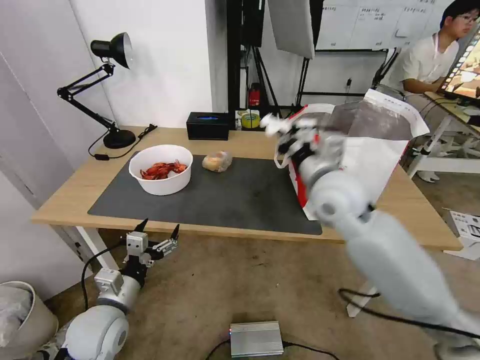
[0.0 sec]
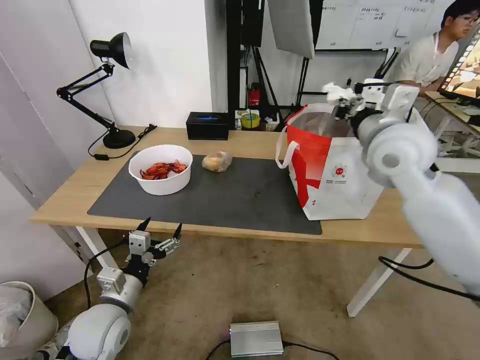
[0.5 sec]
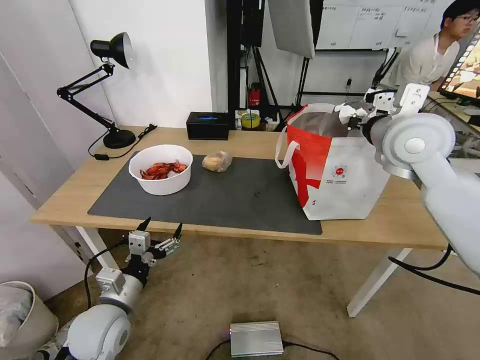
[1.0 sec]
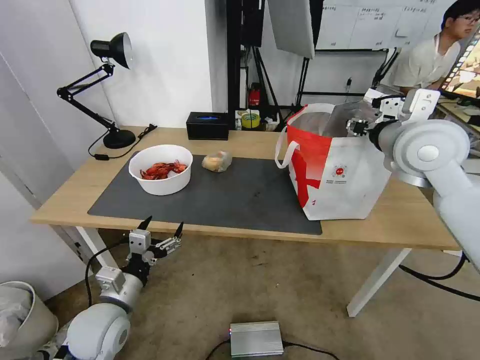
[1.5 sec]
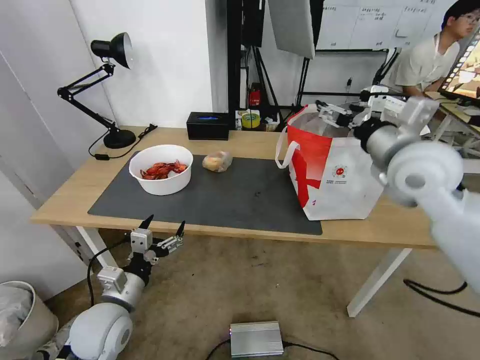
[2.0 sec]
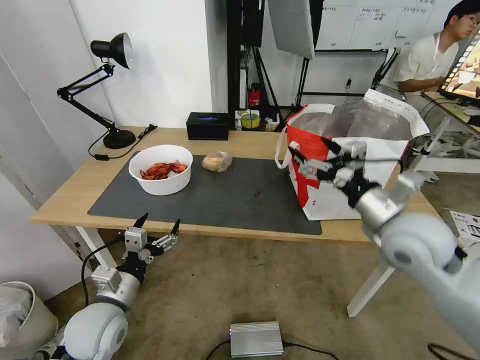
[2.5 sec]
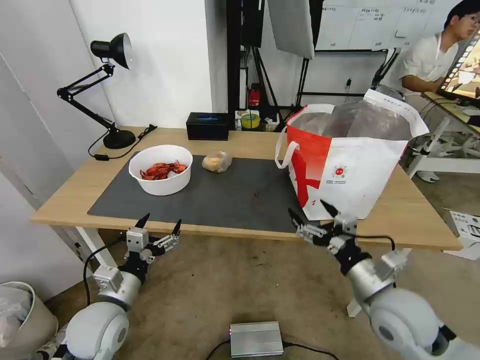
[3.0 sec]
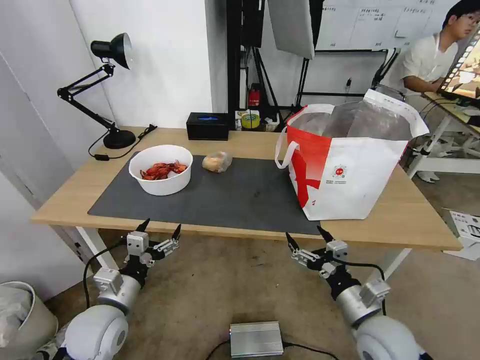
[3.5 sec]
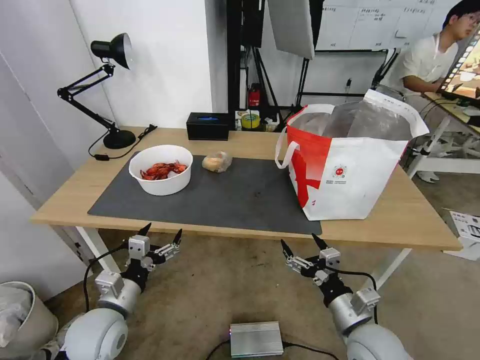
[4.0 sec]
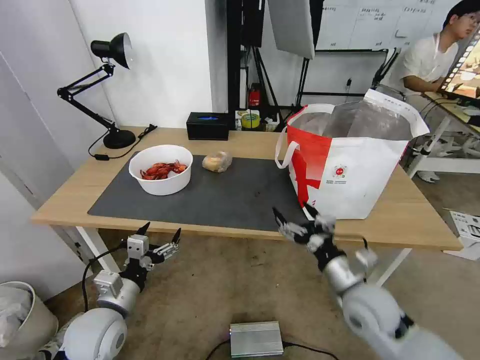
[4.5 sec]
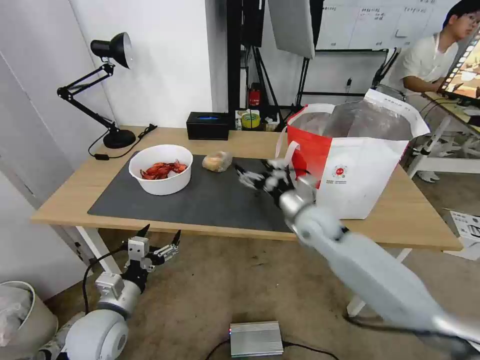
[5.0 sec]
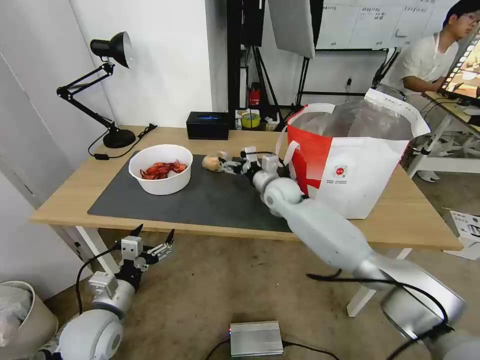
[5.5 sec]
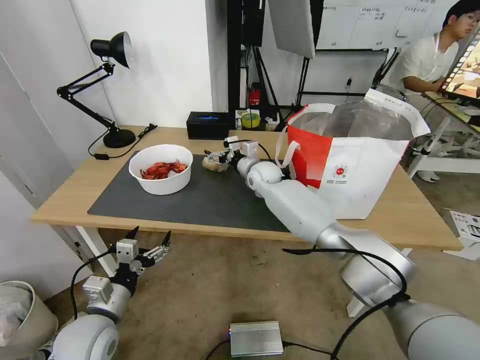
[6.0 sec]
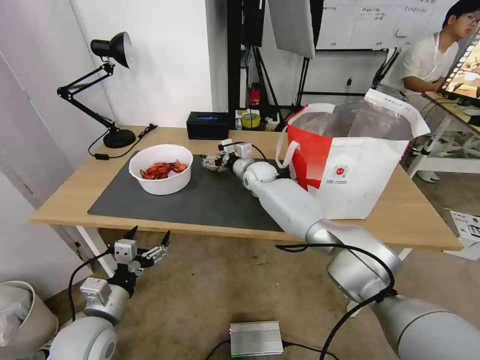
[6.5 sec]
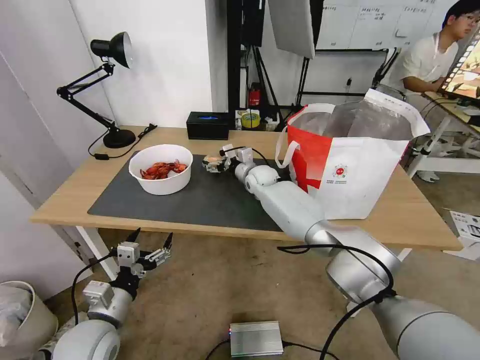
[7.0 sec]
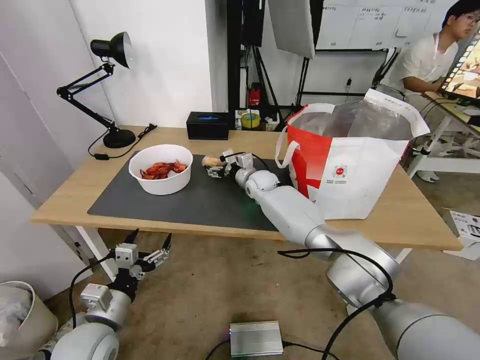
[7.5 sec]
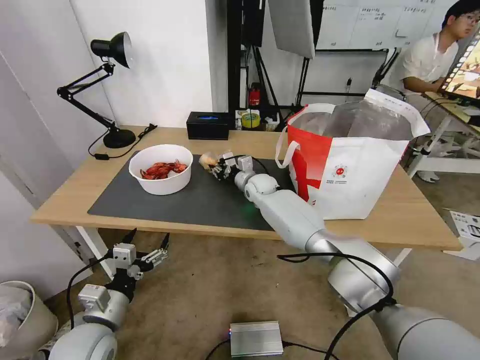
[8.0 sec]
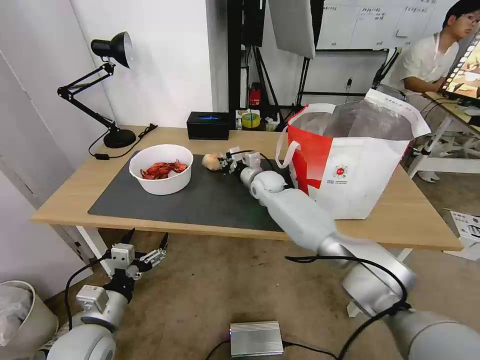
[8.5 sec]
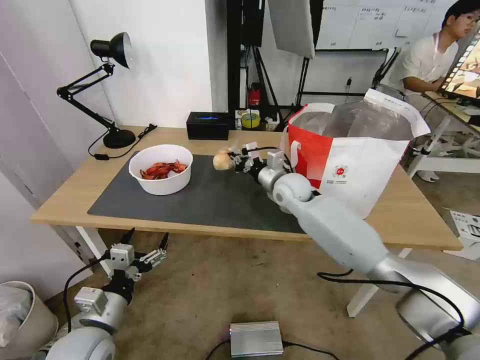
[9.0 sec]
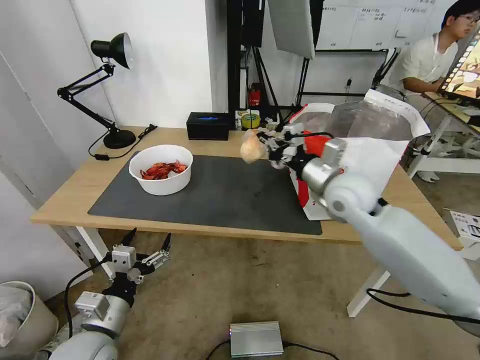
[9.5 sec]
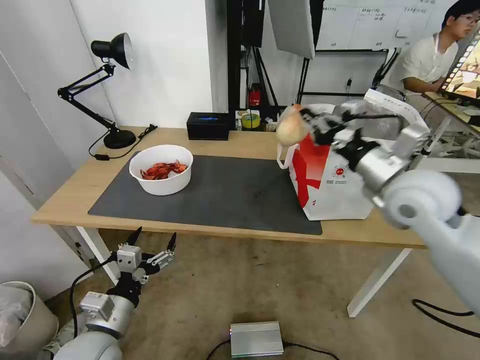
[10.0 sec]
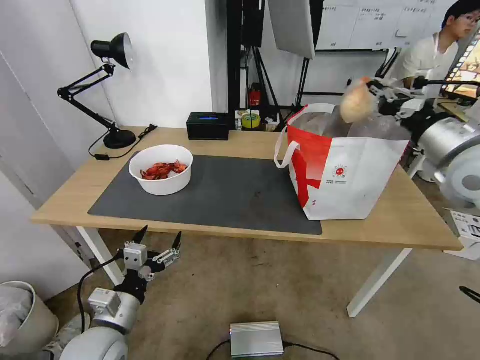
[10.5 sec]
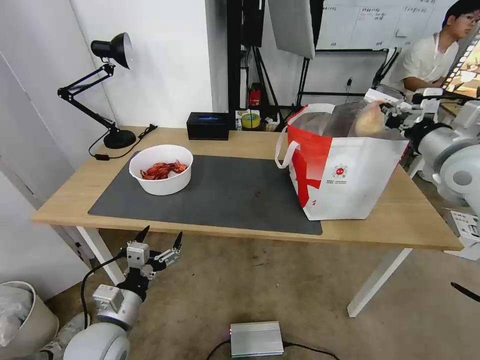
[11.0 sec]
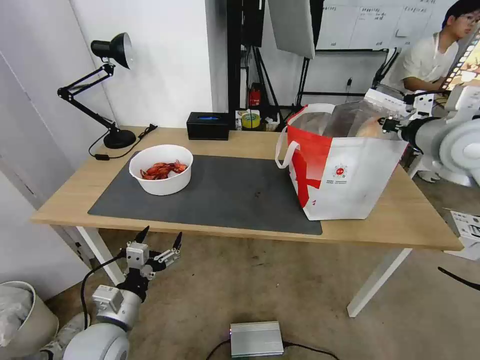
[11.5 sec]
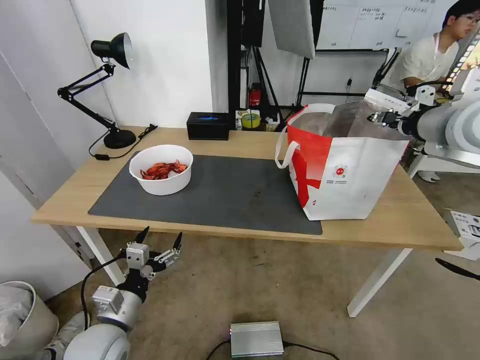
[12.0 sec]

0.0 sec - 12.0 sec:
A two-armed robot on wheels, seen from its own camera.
Task of the whole recording: Pick up the trash from the table and place it into the takeout bag.
0.0 sec - 2.0 sec: The right gripper moves to the right and upward, approximately 15 cm, and opens up.
2.0 sec - 4.0 sec: The right gripper heads downward and backward, covering approximately 35 cm.
4.0 sec - 6.0 sec: The right gripper heads forward and to the left, covering approximately 50 cm.
6.0 sec - 8.0 sec: The right gripper closes.
8.0 sec - 10.0 sec: The right gripper goes roughly 40 cm backward, to the right and upward.
10.0 sec - 12.0 sec: The right gripper heads upward and to the right, covering roughly 15 cm, and opens its fingers.

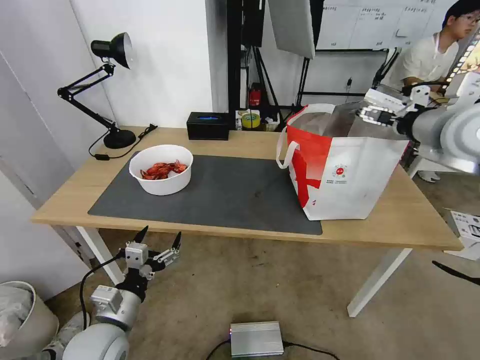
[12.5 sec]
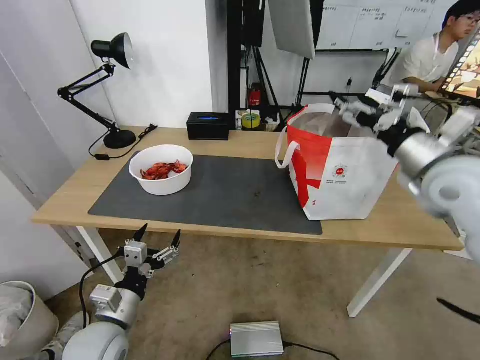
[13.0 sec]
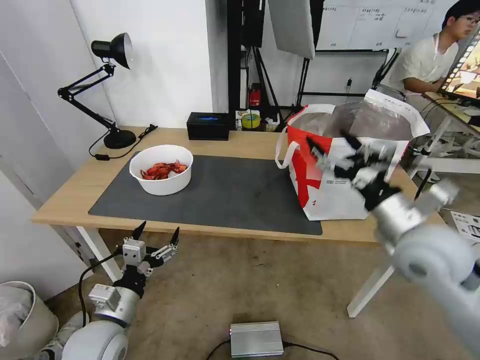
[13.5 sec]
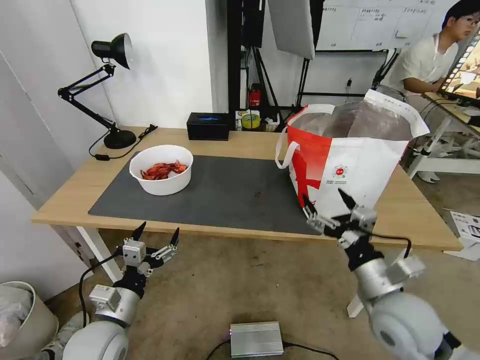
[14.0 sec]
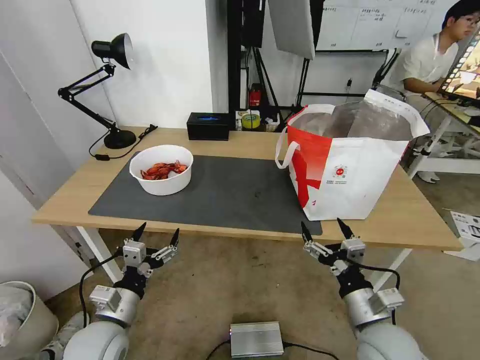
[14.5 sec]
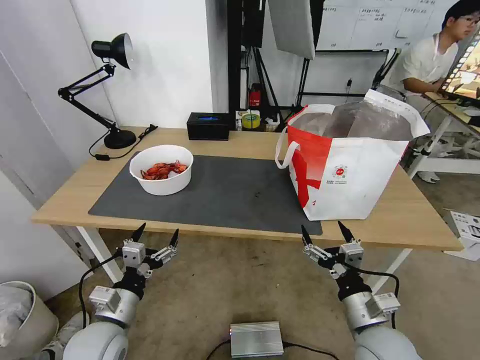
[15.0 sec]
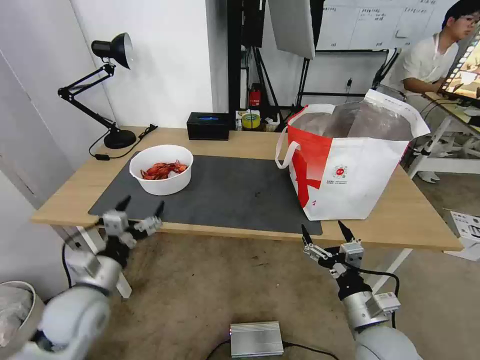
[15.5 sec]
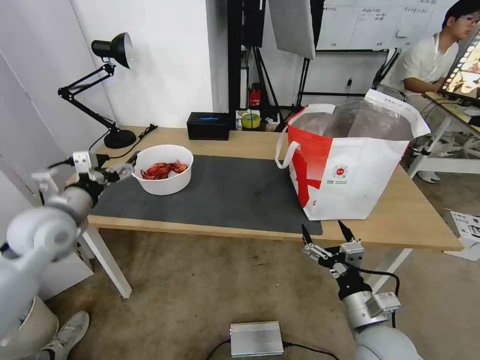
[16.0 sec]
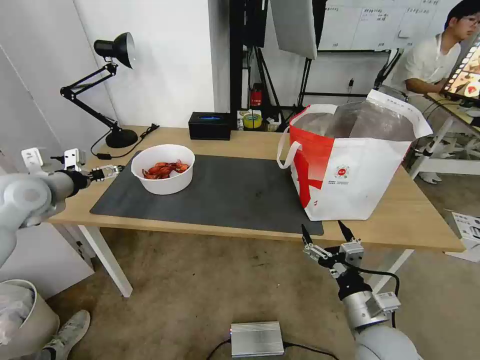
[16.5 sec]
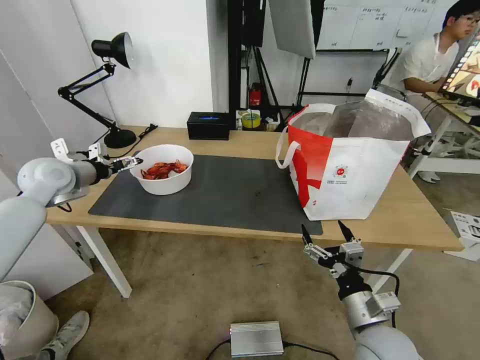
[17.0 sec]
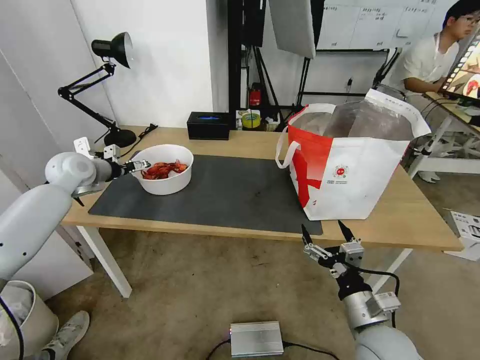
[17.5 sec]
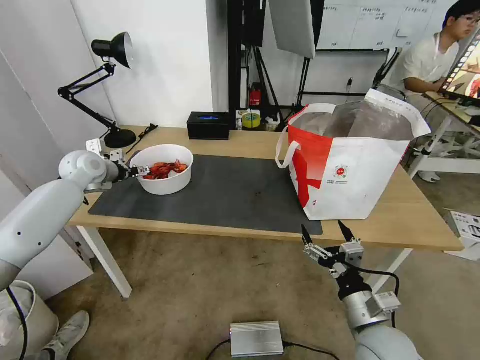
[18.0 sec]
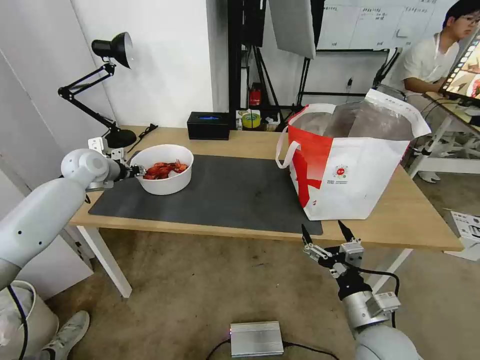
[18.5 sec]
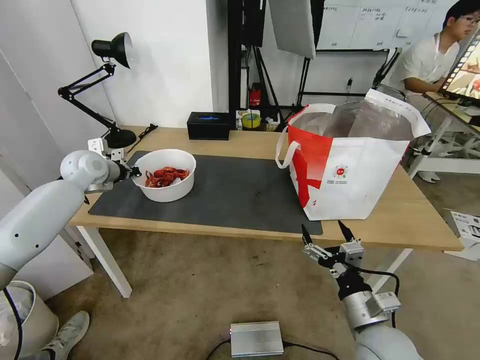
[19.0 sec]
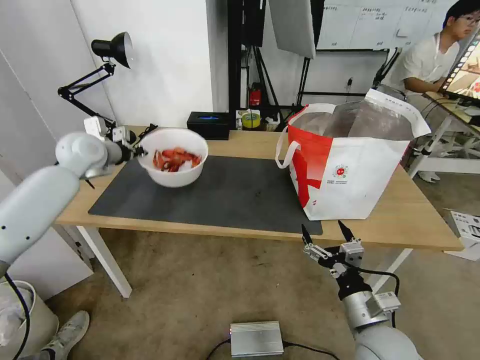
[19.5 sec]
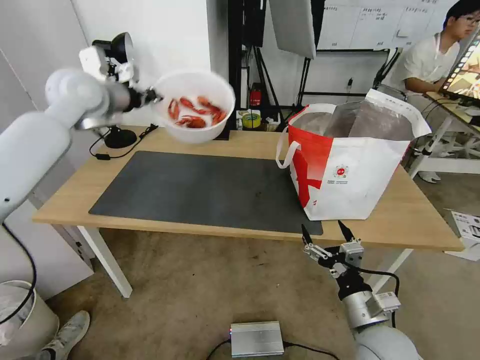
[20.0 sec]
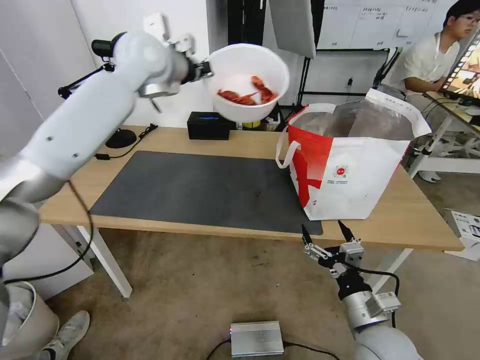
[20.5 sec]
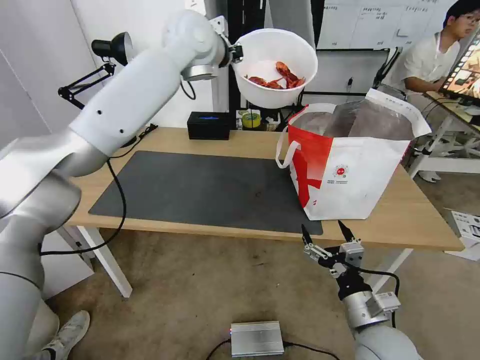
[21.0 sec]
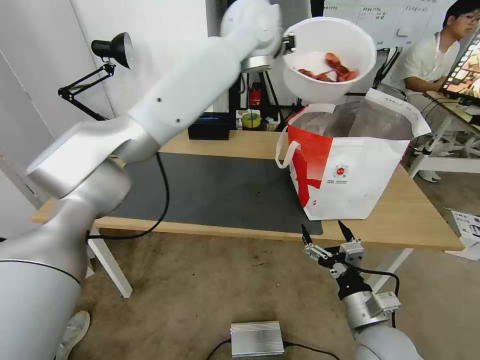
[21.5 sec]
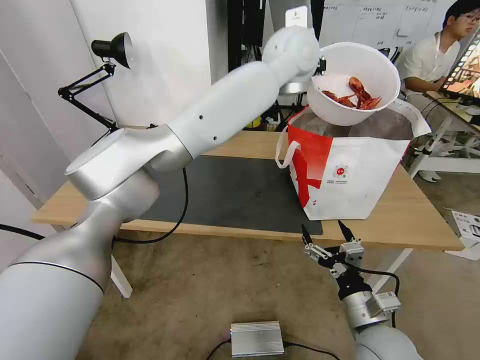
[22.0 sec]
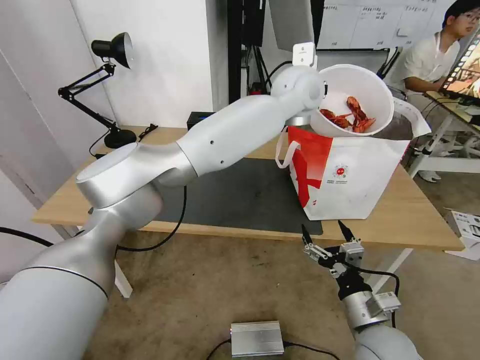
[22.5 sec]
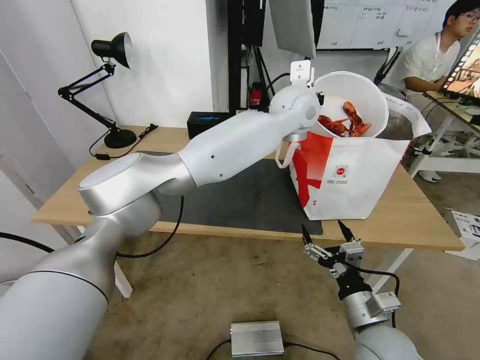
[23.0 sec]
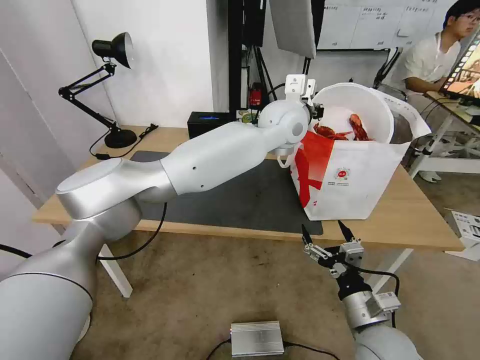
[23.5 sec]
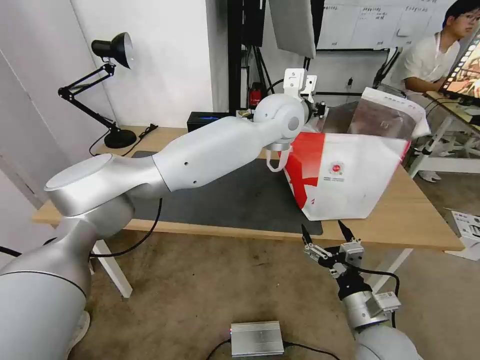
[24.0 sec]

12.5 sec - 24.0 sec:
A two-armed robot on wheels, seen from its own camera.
Task of the whole recording: Pick up the trash from the table and place it into the takeout bag.
12.5 sec - 14.5 sec: The right gripper travels downward and backward by approximately 40 cm.
14.5 sec - 16.5 sec: The left gripper heads forward, upward and to the left, covering approximately 35 cm.
16.5 sec - 18.5 sec: The left gripper goes about 15 cm forward and to the right, and closes up.
18.5 sec - 20.0 sec: The left gripper goes roughly 20 cm upward and to the right, and closes up.
20.0 sec - 22.0 sec: The left gripper travels to the right by some 40 cm.
22.0 sec - 24.0 sec: The left gripper travels downward by approximately 10 cm, and opens its fingers.

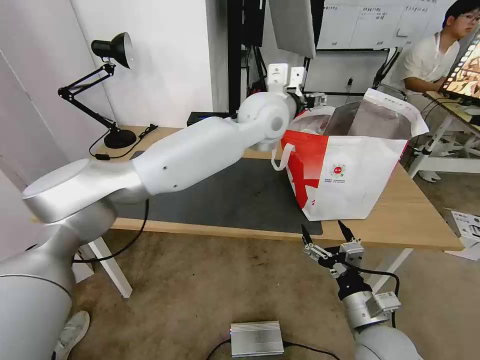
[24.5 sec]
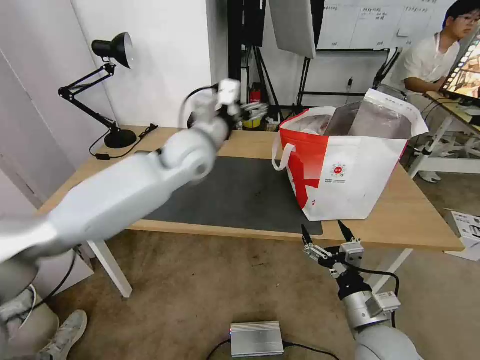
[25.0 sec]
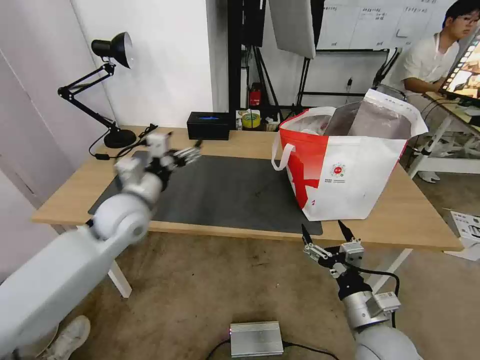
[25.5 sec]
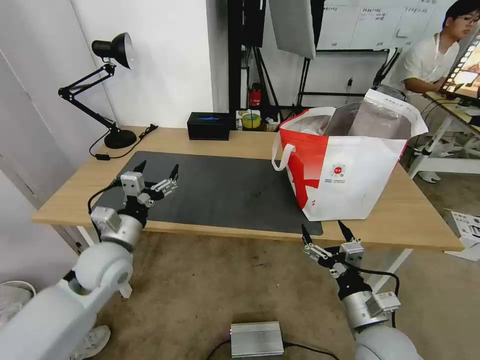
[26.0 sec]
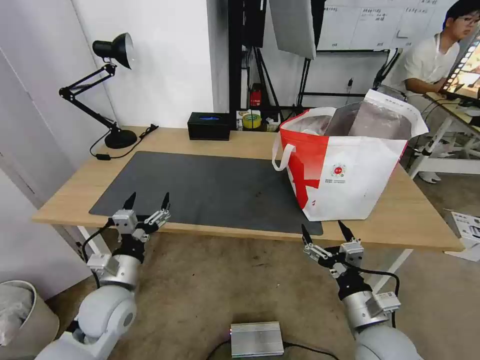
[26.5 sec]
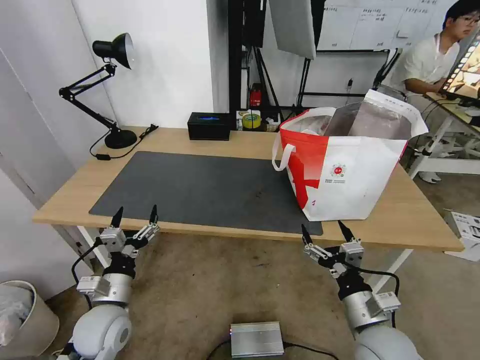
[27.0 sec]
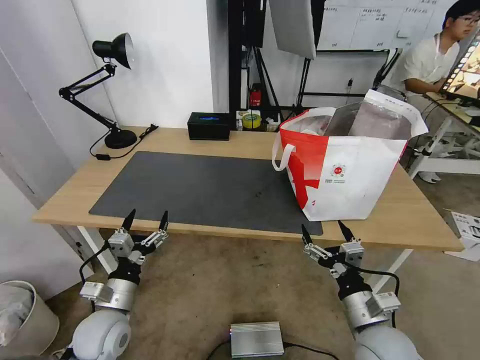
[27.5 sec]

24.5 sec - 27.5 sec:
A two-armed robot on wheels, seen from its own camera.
Task of the whole recording: Pick up the trash from the table and place it into the takeout bag.
24.5 sec - 26.0 sec: The left gripper travels to the left, downward and backward by about 40 cm.
26.0 sec - 27.5 sec: The left gripper heads downward and backward, covering about 15 cm.
